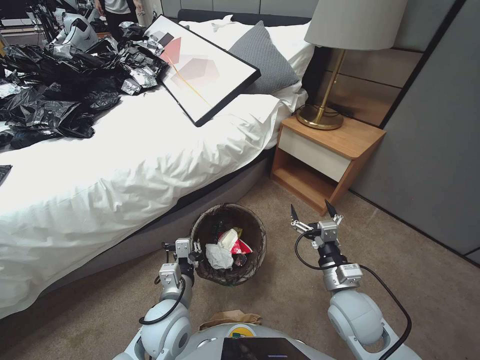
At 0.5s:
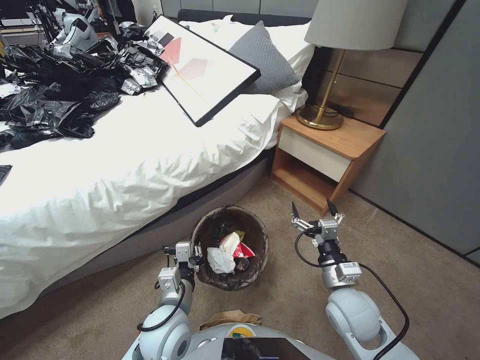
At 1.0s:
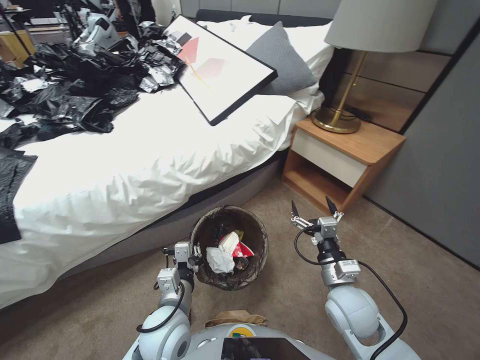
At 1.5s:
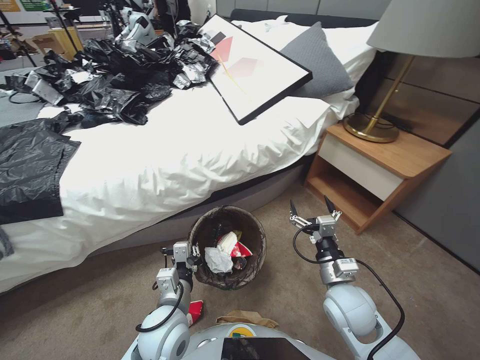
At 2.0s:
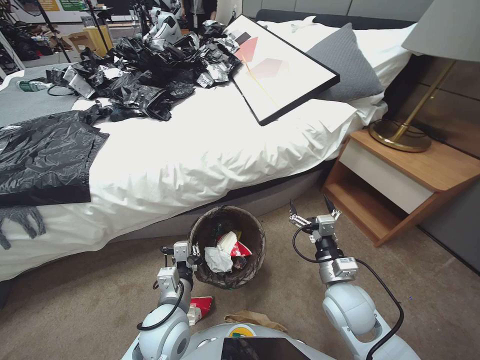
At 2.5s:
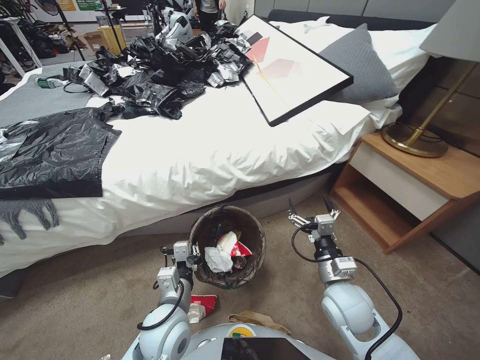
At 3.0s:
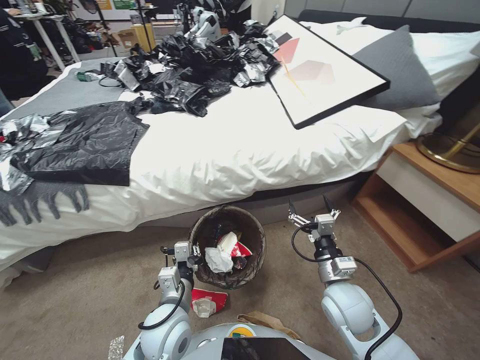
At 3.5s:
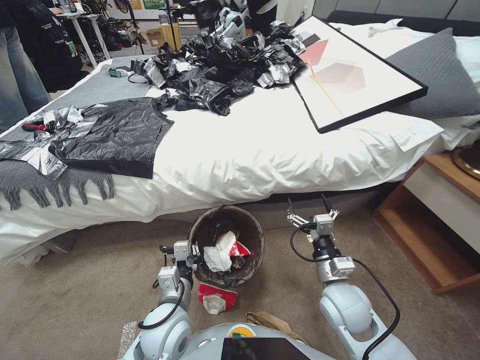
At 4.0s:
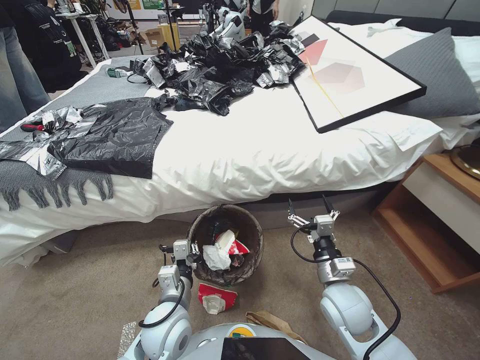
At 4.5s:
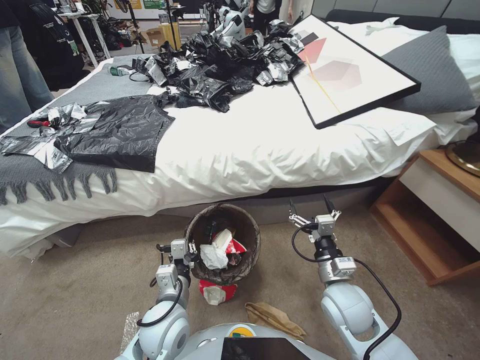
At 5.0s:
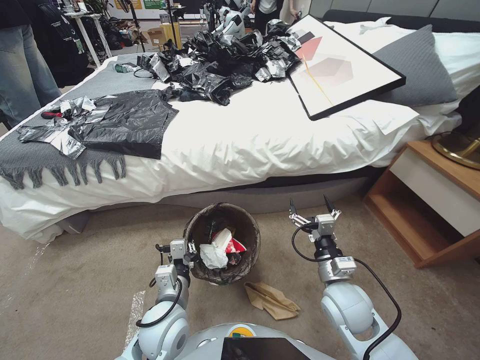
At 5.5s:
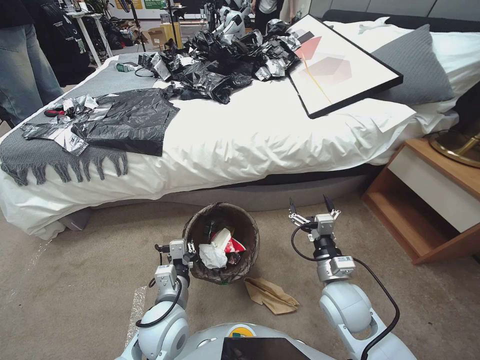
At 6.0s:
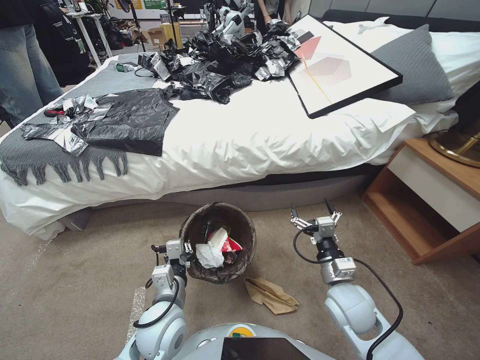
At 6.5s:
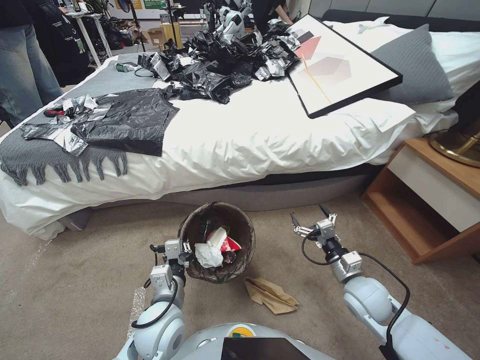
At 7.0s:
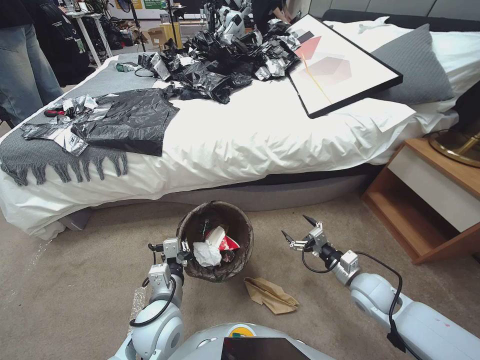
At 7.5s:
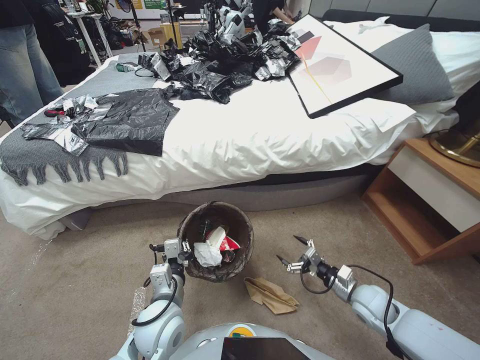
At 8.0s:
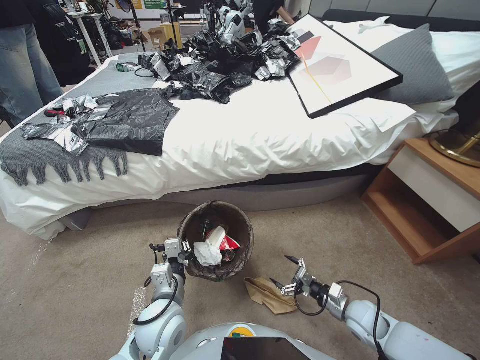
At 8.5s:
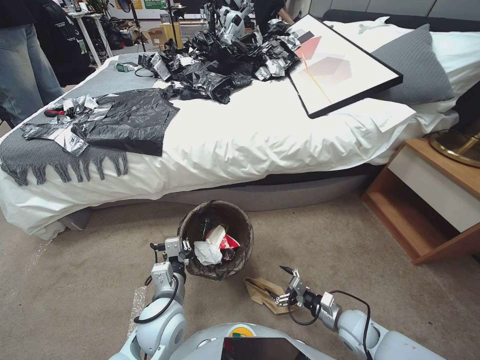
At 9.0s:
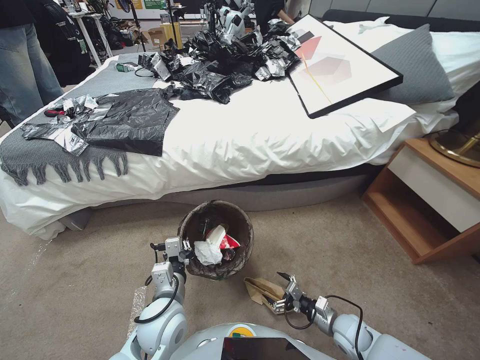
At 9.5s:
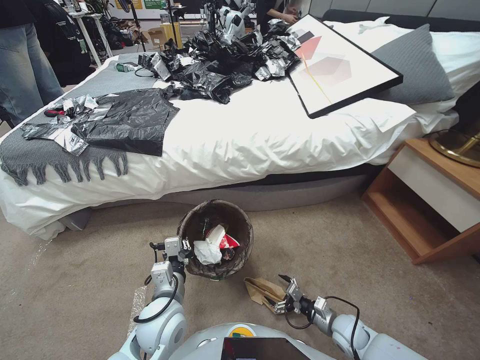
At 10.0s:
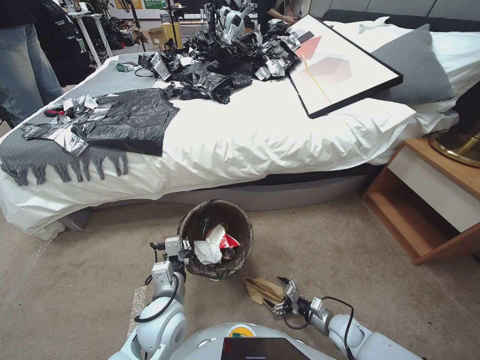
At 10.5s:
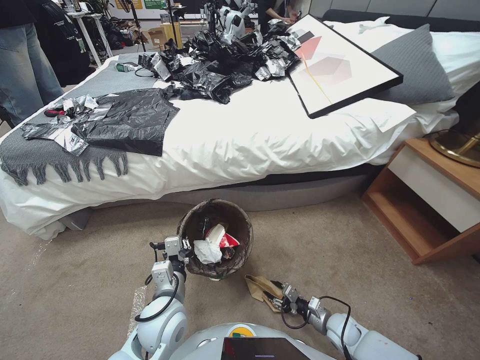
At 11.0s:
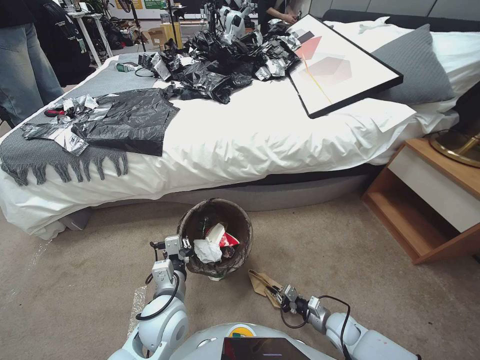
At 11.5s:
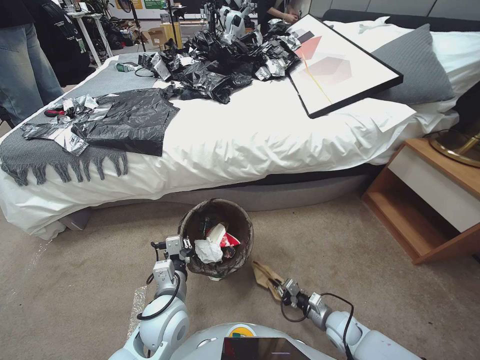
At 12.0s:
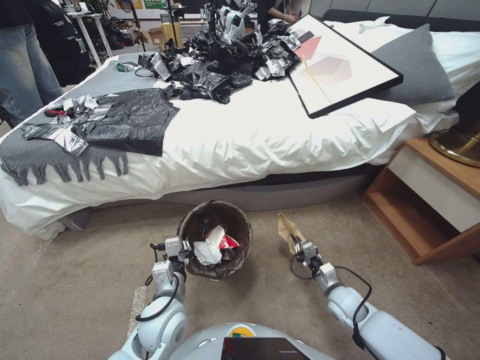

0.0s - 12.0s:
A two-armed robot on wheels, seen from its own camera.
Task of the whole recording: Pick up the trash bin, then pick up the garbage from the floor and place it into the trash bin.
6.0s - 8.0s: The right gripper goes approximately 20 cm downward and to the right.
8.0s - 10.0s: The right gripper goes some 10 cm downward.
10.0s - 12.0s: The right gripper closes its fingers.

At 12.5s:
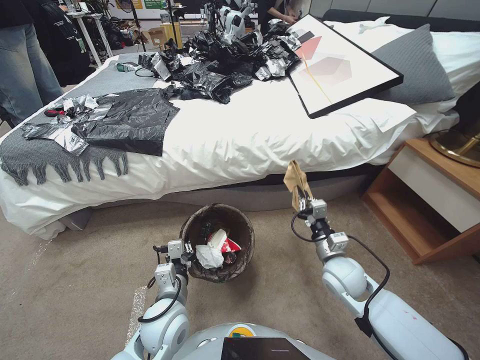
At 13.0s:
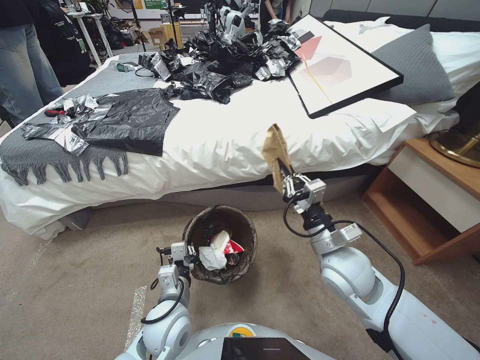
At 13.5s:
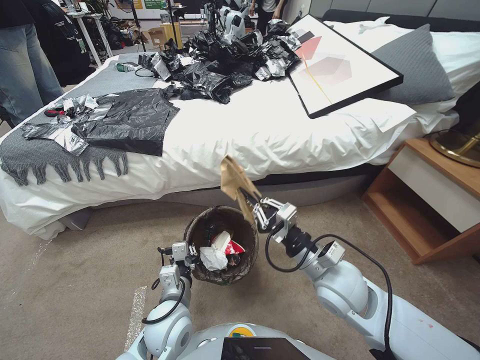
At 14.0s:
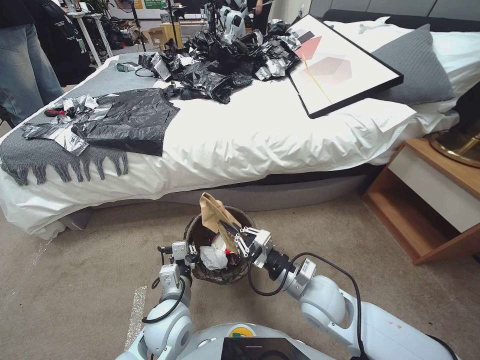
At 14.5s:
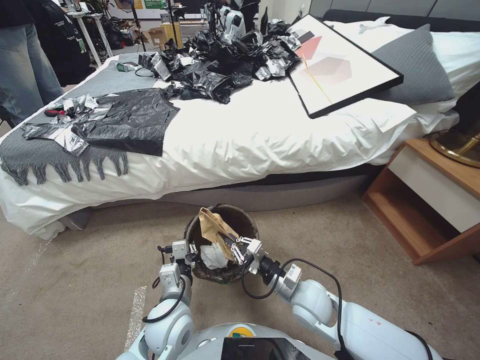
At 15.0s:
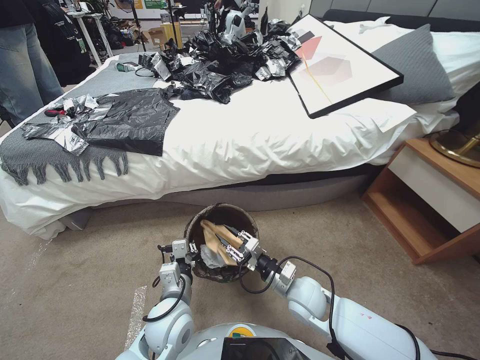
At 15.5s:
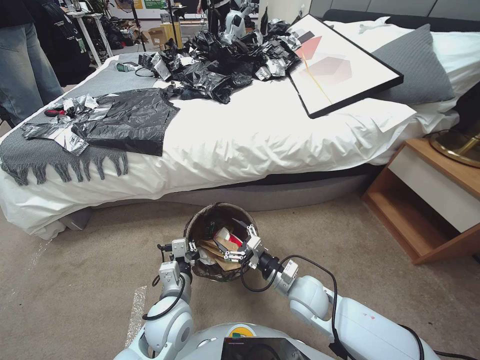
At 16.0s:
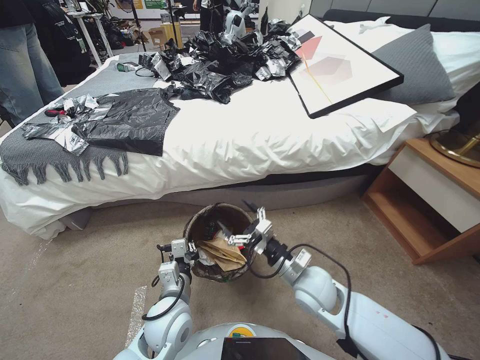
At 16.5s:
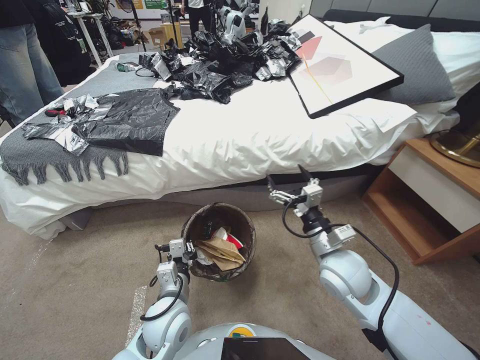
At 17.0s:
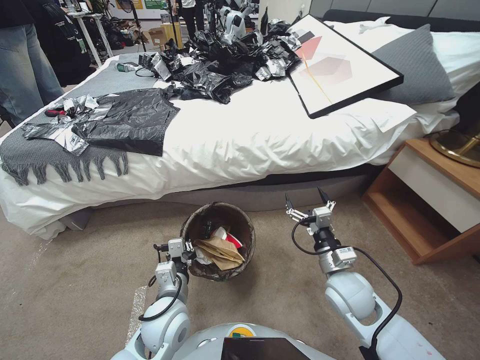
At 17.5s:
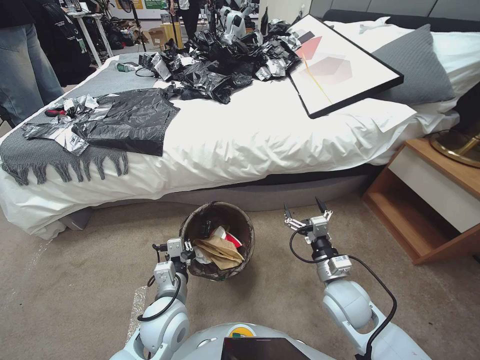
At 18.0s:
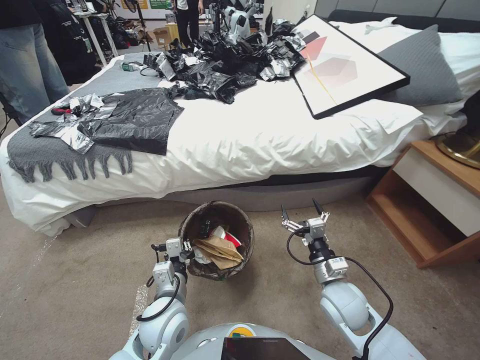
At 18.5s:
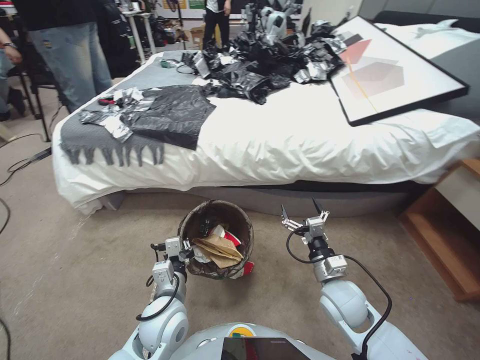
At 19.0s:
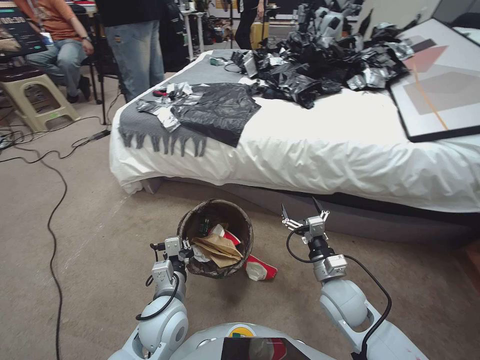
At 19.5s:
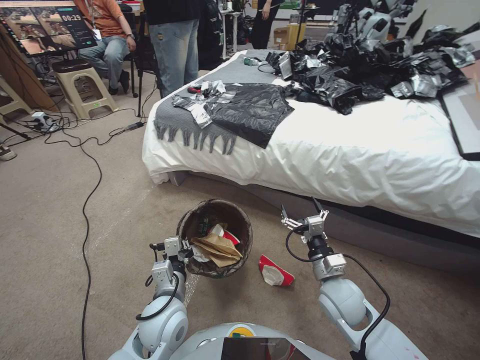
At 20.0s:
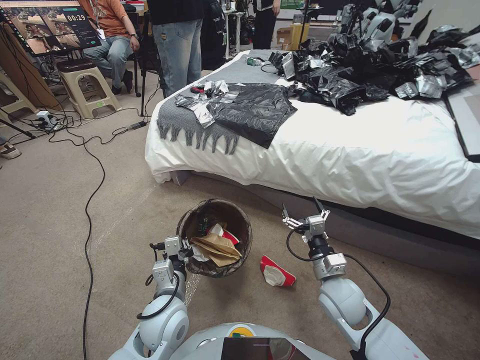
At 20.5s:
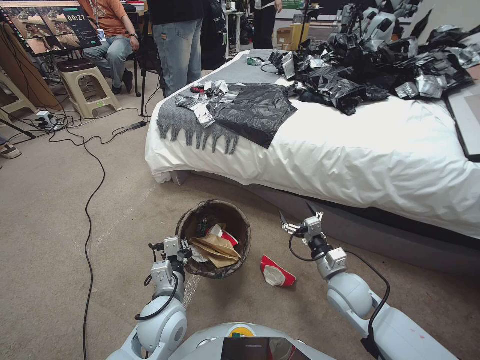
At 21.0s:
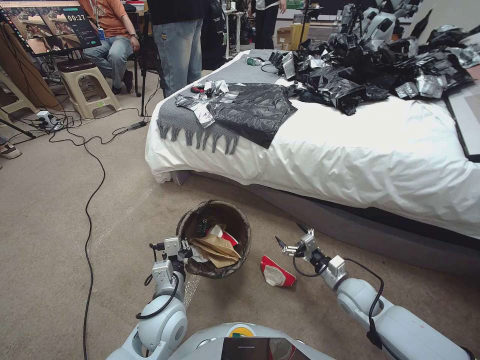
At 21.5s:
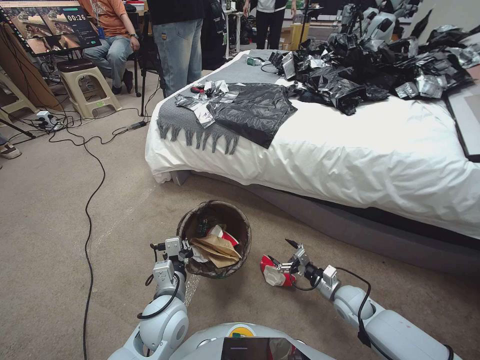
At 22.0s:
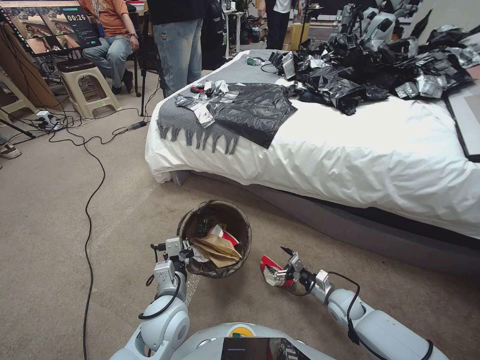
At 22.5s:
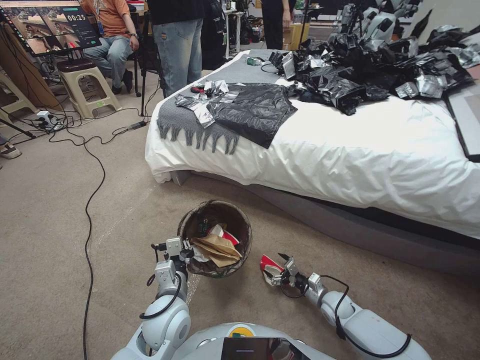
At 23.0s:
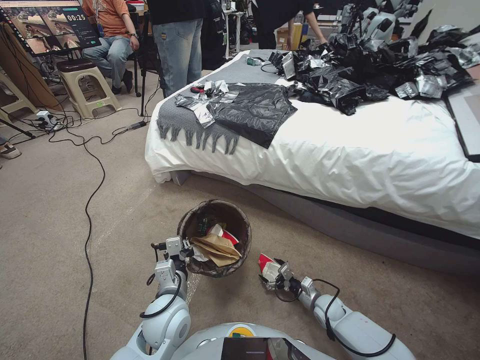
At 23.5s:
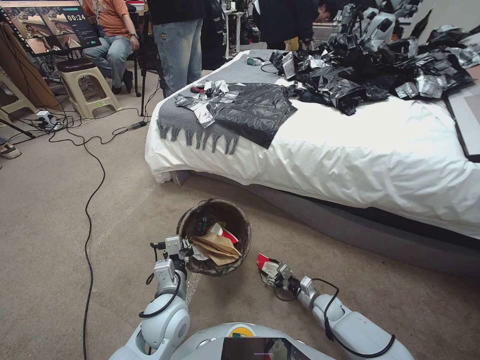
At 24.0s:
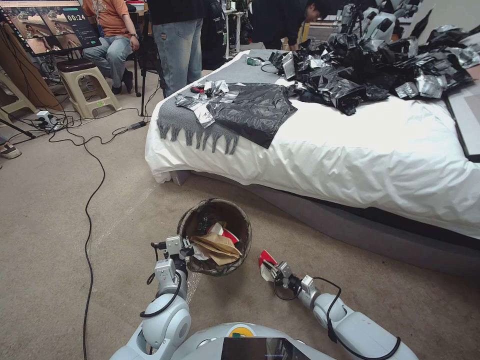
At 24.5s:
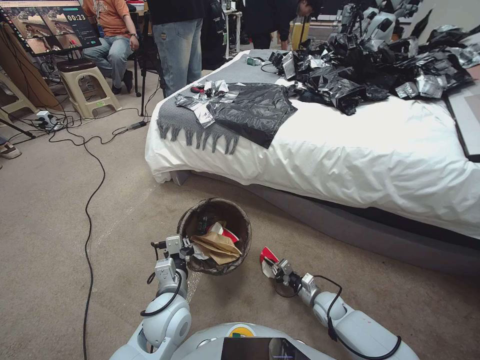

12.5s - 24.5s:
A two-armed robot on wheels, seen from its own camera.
Task of the whole recording: Pick up the trash bin, then pick up the garbage from the floor and place it into the trash bin.
12.5s - 14.5s: The right gripper goes about 15 cm to the left and upward.
14.5s - 16.5s: The right gripper heads upward, covering some 10 cm, and opens its fingers.
16.5s - 18.5s: The right gripper shifts about 10 cm downward.
20.5s - 22.5s: The right gripper goes about 20 cm downward.
22.5s - 24.5s: The right gripper closes up.

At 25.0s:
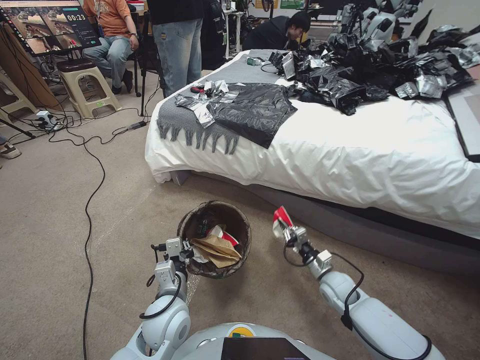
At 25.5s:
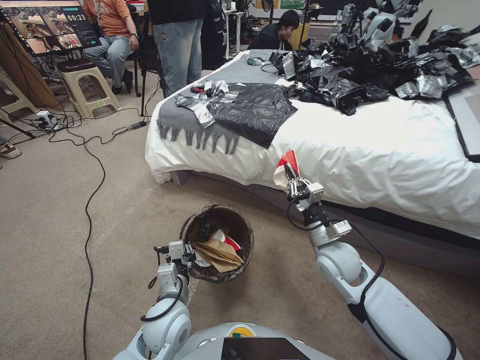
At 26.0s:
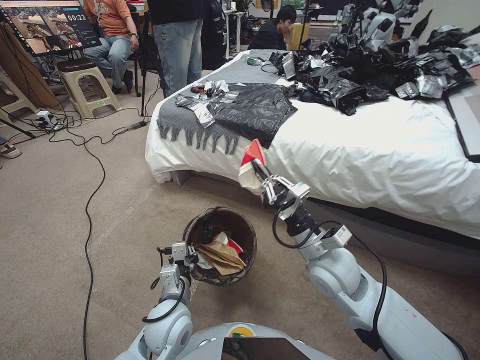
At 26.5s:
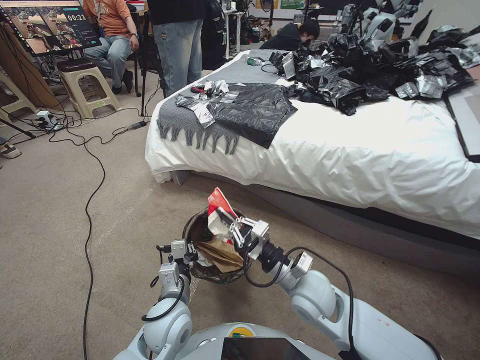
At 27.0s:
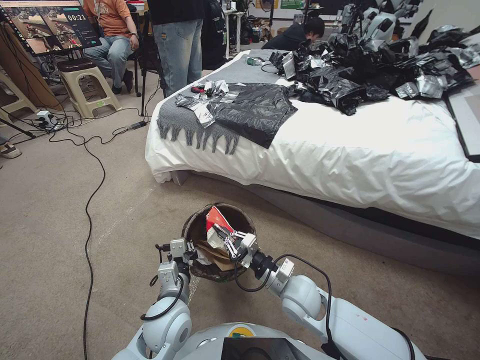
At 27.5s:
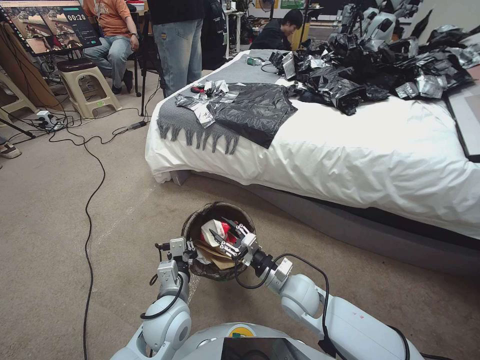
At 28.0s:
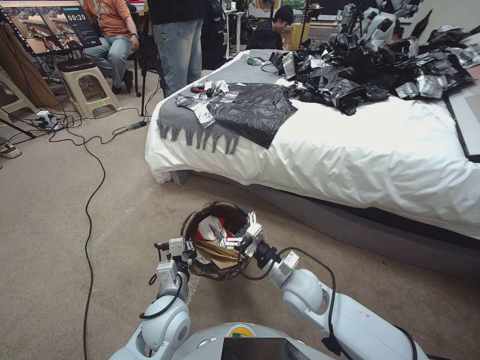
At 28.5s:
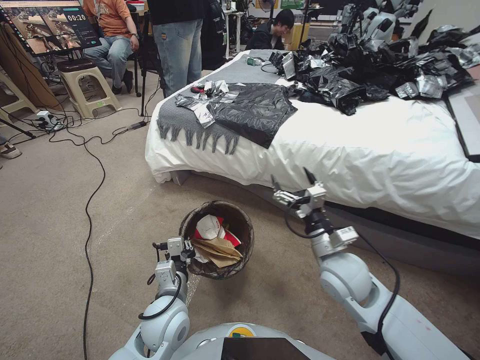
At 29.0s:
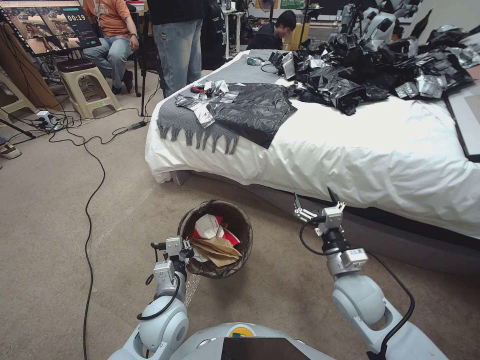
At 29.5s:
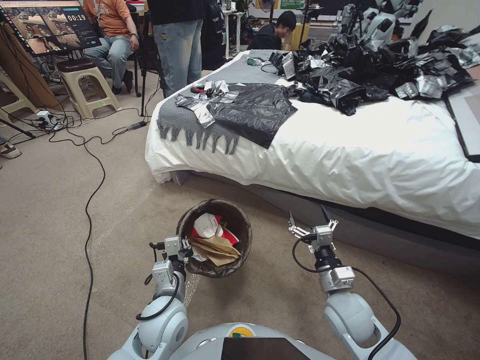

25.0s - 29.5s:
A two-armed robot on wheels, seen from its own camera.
Task of the whole recording: Pick up the trash bin, then pick up the garbage from the floor and place it into the trash bin.
25.0s - 27.0s: The right gripper travels to the left and upward by some 20 cm.
27.0s - 29.5s: The right gripper heads to the right, covering roughly 10 cm, travels upward and back again, roughly 10 cm each way, and opens its fingers.
